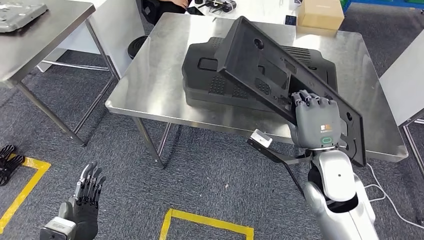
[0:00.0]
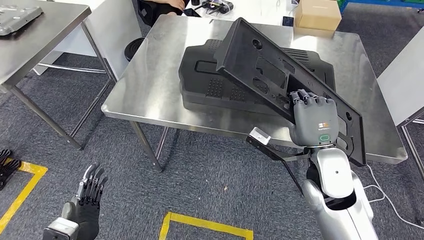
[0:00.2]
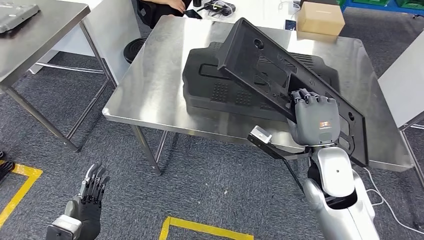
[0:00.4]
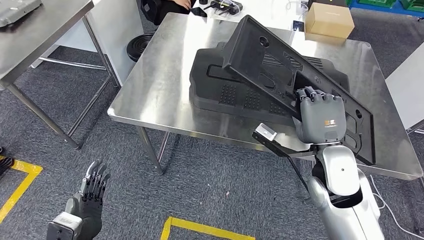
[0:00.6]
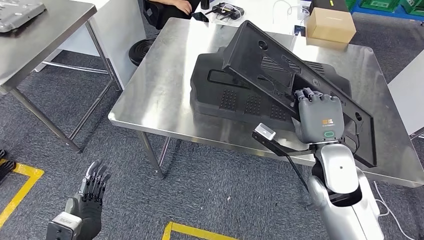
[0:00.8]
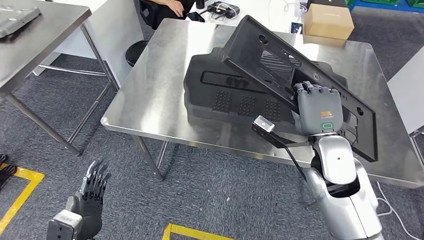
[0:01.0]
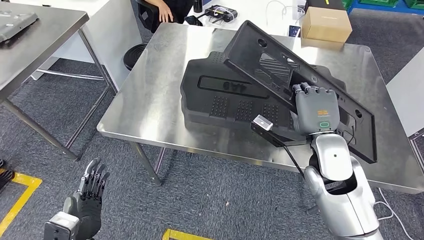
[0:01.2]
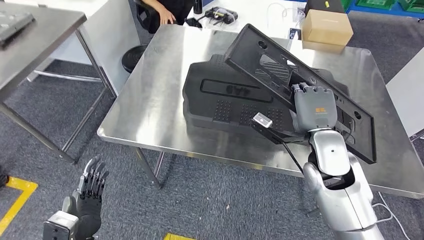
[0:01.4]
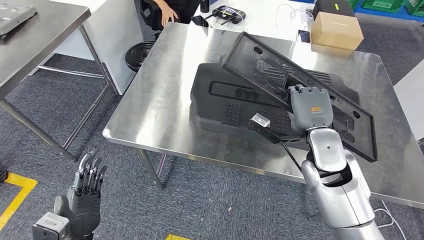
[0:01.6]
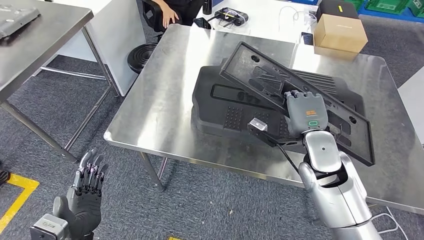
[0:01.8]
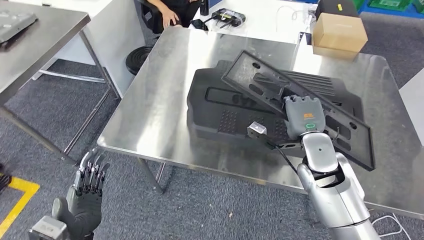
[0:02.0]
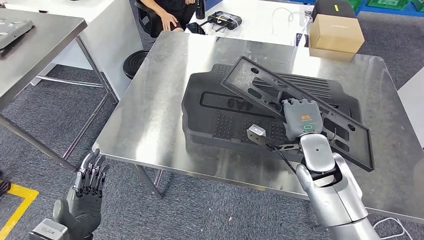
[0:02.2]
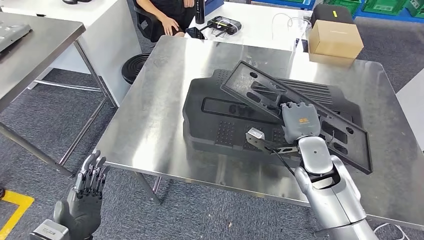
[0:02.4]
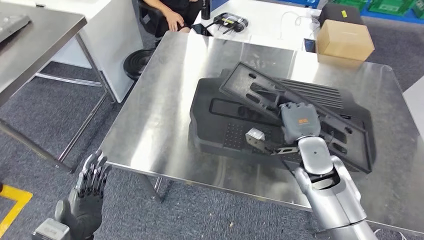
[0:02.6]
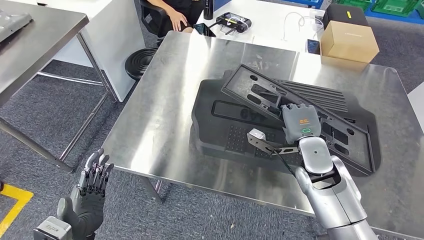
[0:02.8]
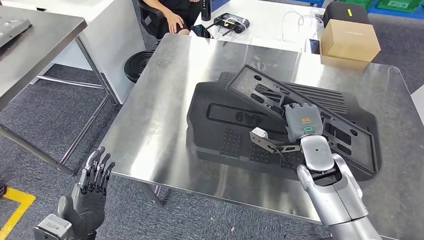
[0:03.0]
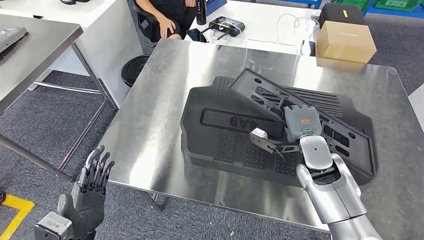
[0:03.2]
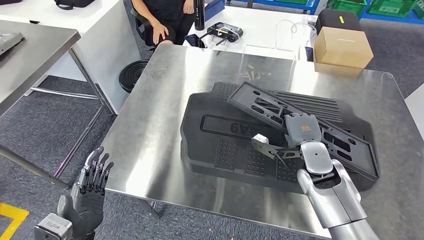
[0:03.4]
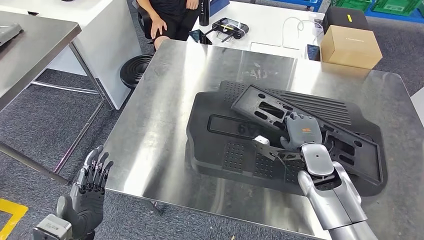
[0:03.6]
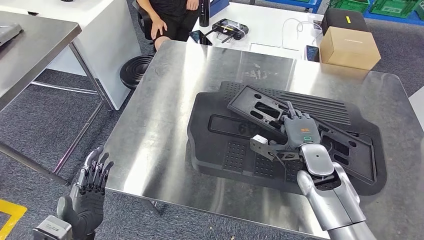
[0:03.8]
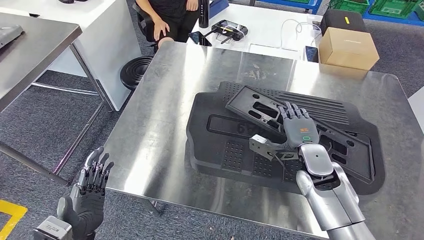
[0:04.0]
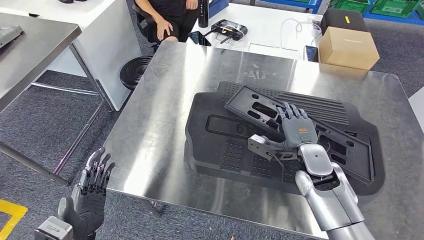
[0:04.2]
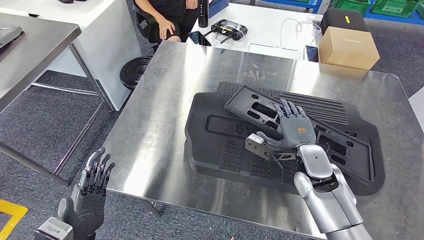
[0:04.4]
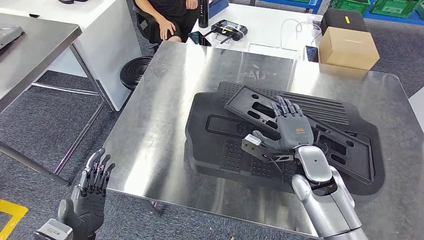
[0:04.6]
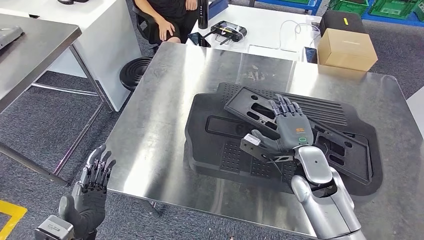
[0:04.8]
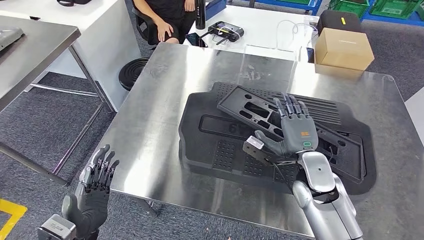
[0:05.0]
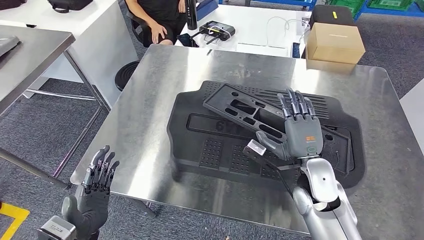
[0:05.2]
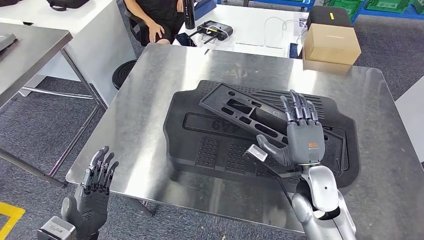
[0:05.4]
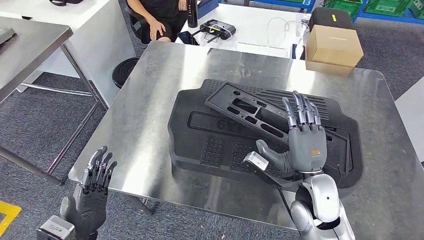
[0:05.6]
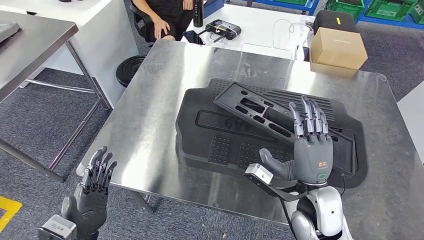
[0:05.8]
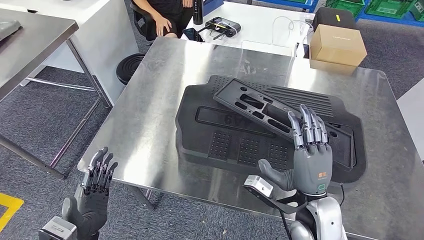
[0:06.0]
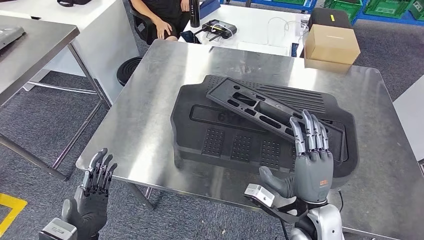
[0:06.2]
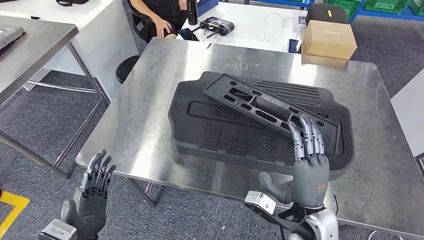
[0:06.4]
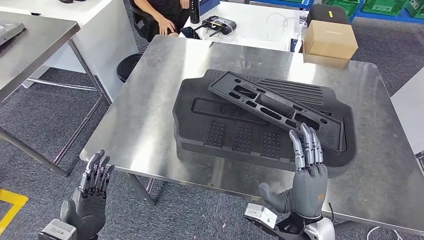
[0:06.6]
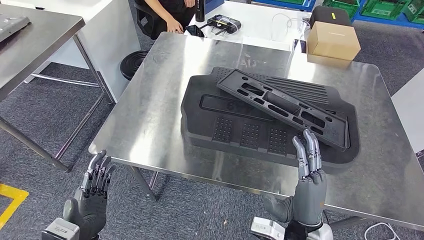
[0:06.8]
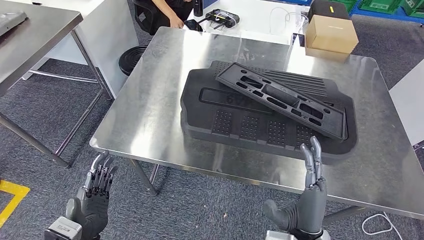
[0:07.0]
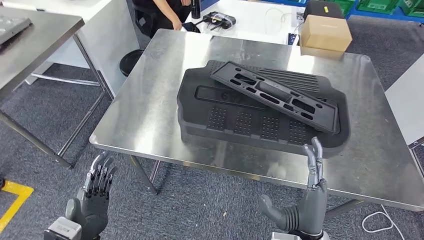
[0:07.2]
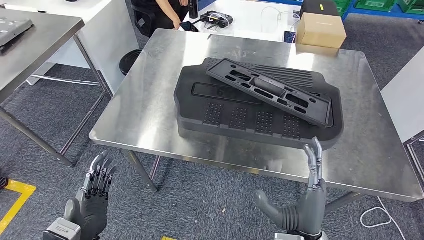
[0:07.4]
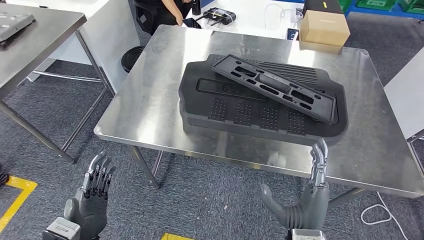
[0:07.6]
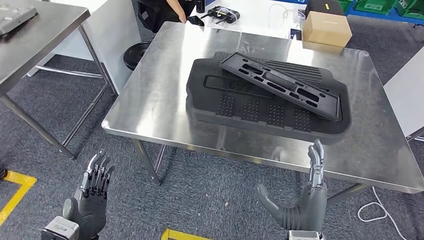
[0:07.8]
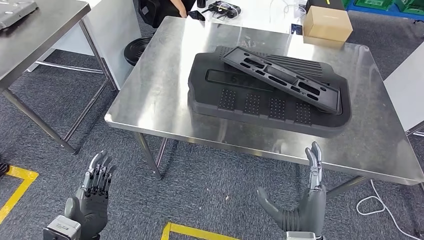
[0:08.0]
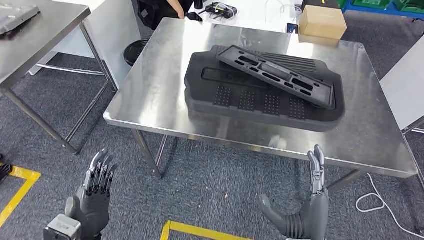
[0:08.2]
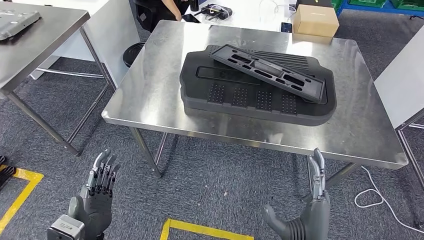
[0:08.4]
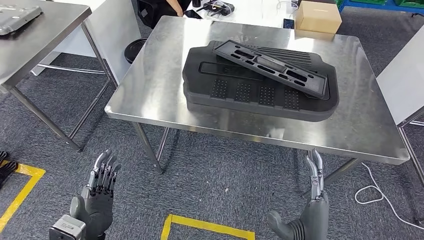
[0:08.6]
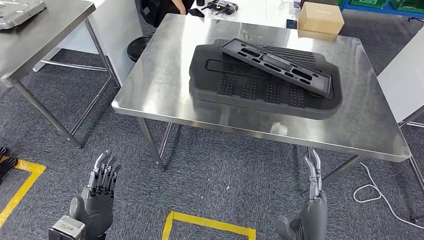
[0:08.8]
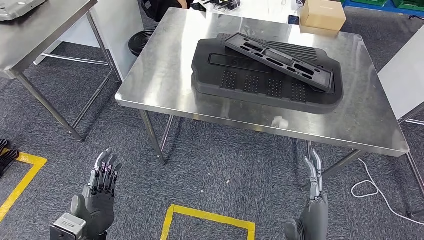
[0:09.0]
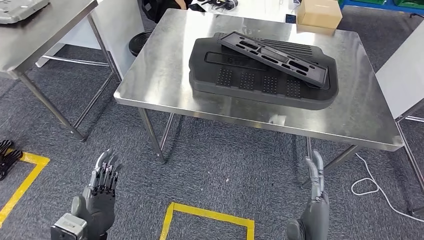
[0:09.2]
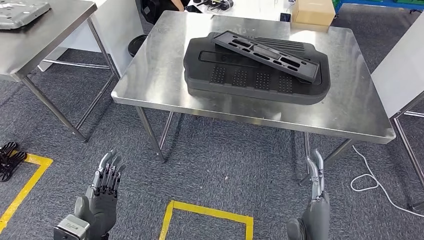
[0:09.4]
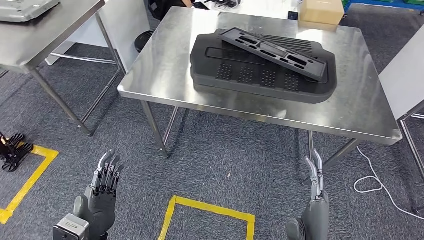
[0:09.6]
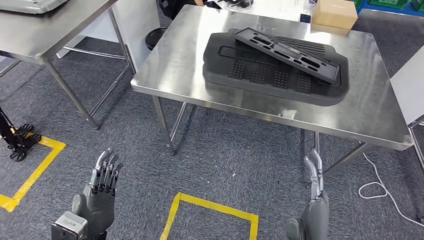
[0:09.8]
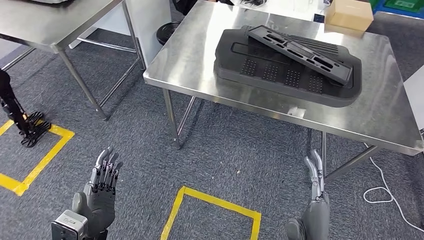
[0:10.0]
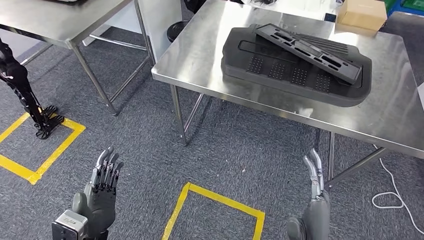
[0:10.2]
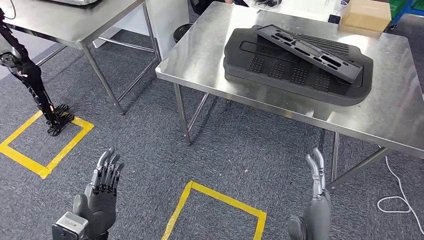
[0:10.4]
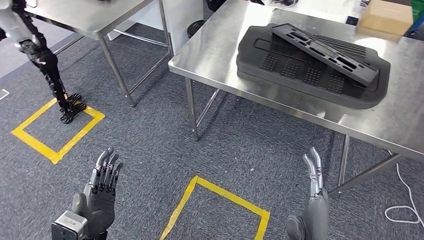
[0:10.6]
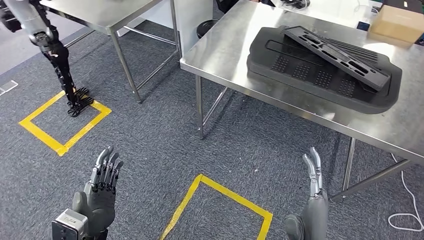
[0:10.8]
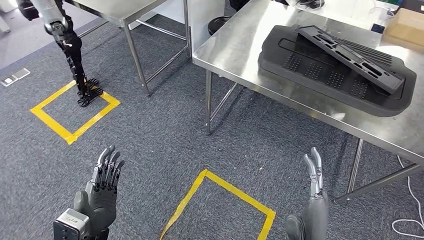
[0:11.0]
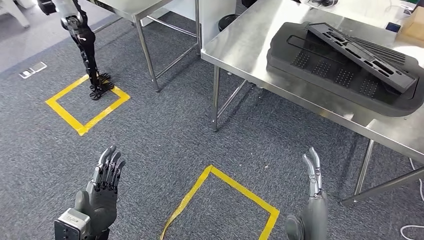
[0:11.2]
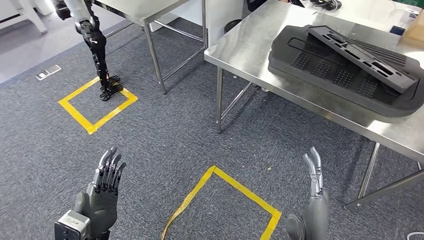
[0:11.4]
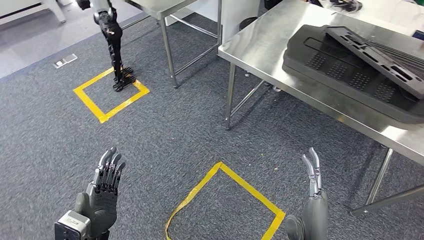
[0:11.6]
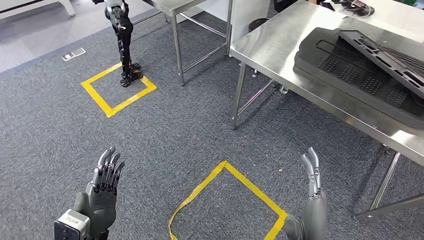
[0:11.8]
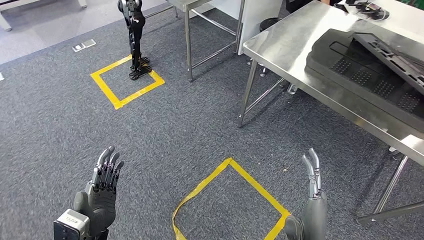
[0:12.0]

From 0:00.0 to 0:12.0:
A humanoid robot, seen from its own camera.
Step, from 0:00.0 to 0:05.6: Insert the large material into the corresponding hole on the workbench.

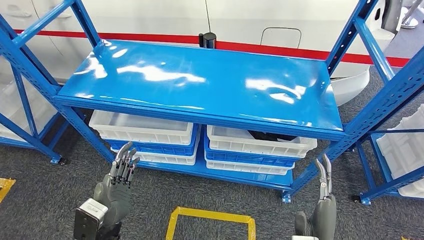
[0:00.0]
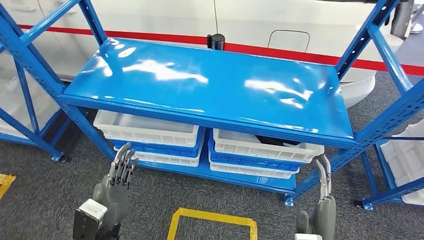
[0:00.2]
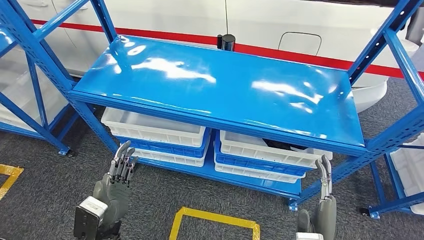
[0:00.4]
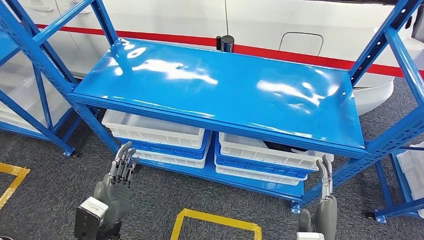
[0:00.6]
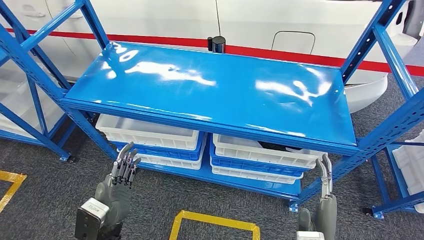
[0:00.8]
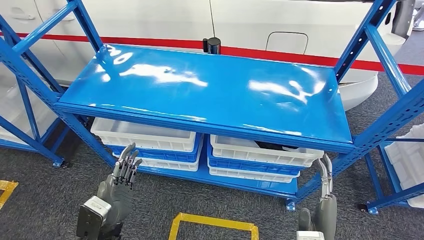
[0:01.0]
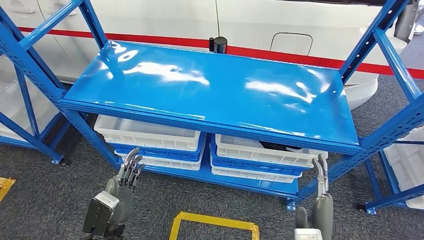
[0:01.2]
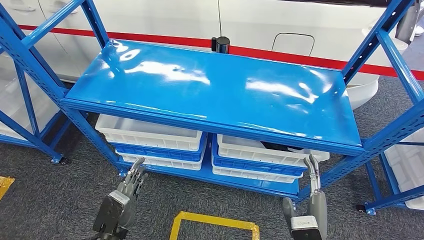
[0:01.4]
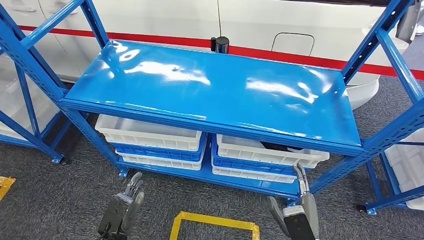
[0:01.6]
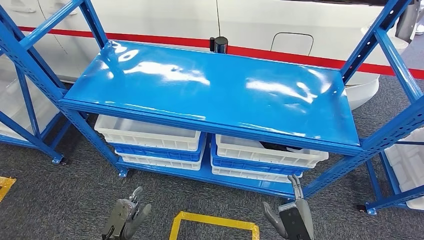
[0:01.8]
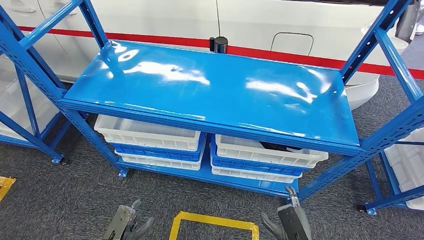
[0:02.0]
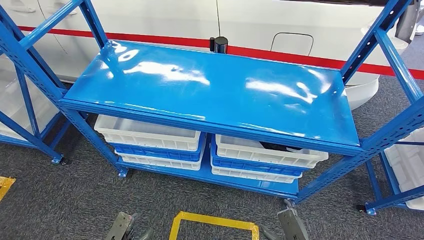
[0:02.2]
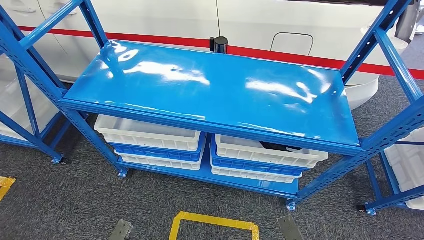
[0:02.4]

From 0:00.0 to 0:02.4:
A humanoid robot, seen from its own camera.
Step, from 0:00.0 to 0:02.4: Move to the initial position of the shelf.
From 0:01.2 to 0:02.4: The hands both shift downward by about 20 cm.
